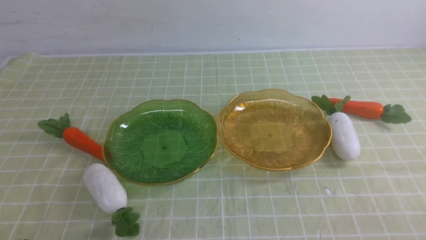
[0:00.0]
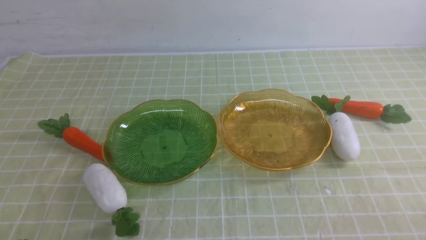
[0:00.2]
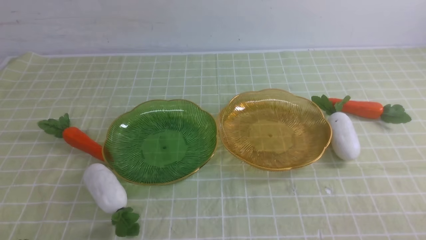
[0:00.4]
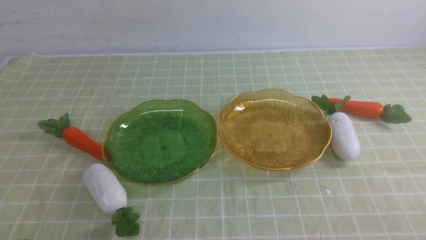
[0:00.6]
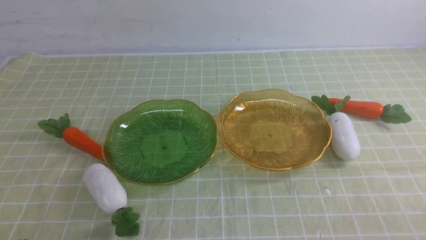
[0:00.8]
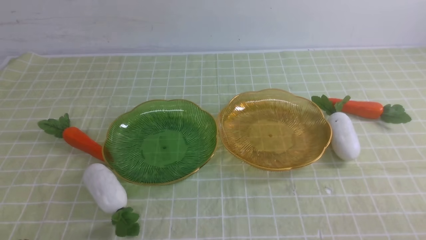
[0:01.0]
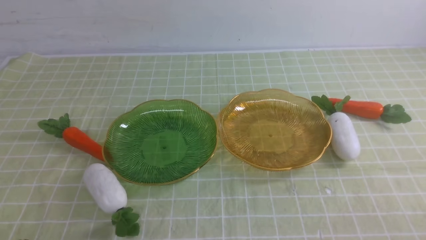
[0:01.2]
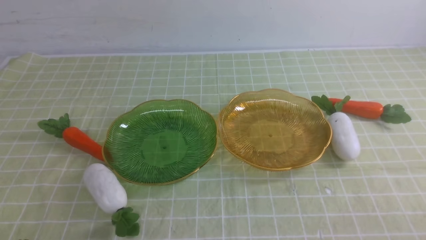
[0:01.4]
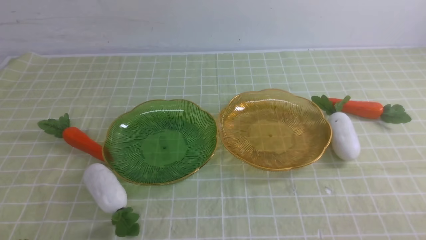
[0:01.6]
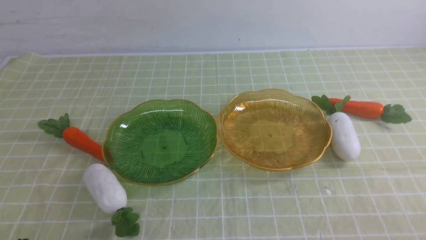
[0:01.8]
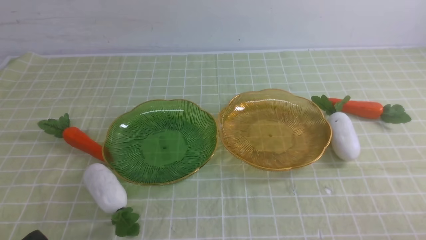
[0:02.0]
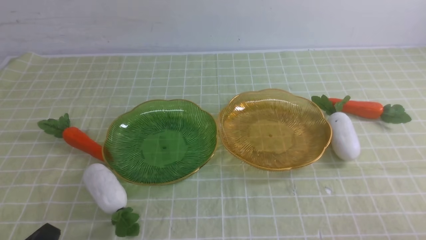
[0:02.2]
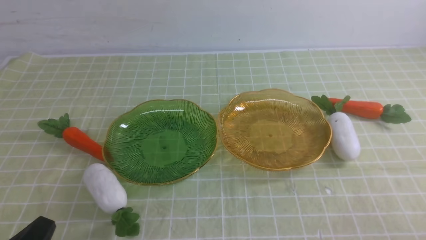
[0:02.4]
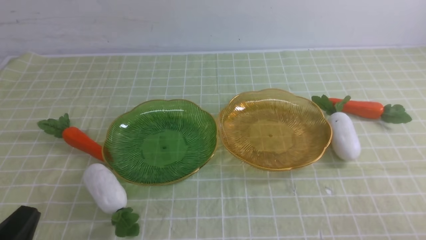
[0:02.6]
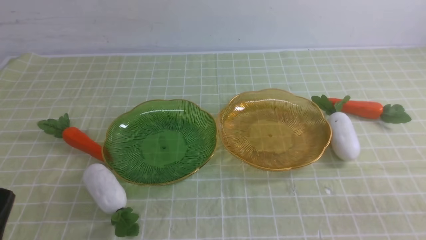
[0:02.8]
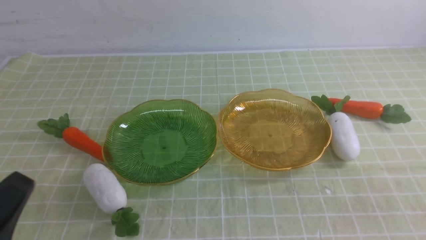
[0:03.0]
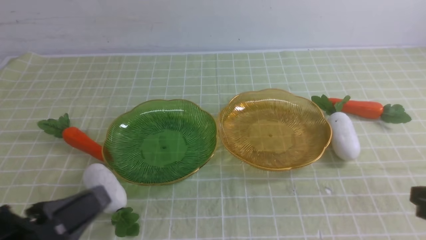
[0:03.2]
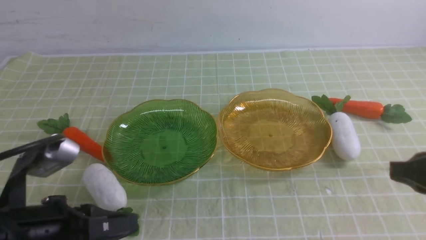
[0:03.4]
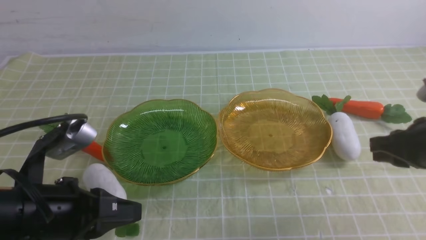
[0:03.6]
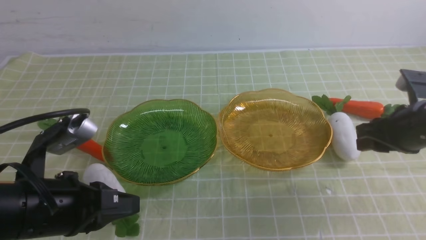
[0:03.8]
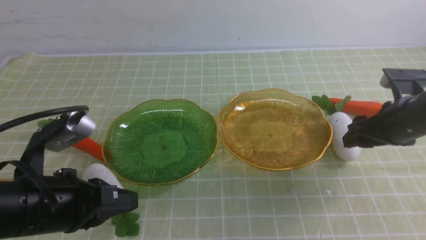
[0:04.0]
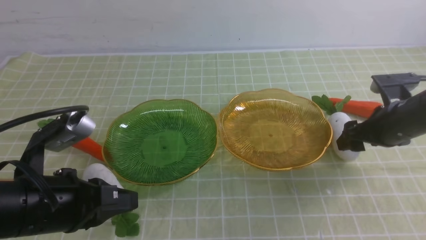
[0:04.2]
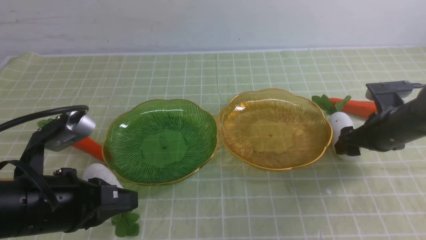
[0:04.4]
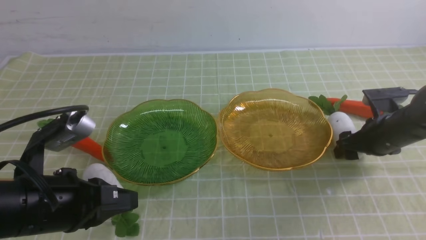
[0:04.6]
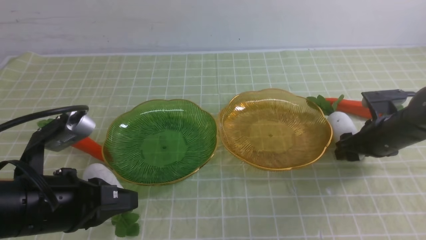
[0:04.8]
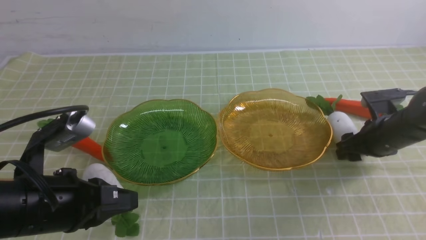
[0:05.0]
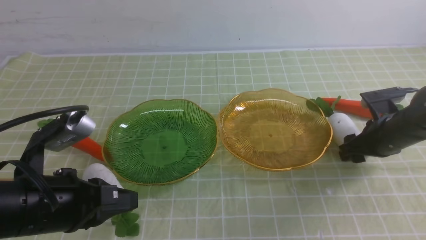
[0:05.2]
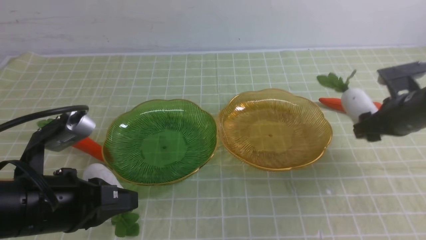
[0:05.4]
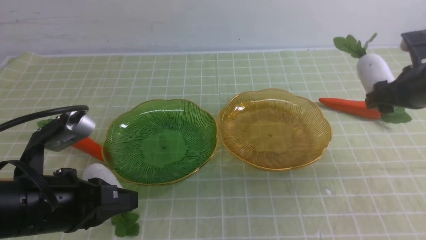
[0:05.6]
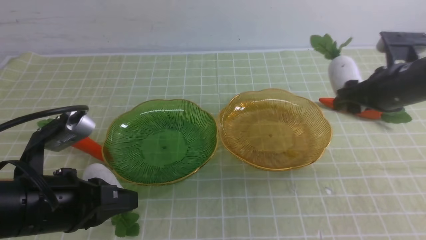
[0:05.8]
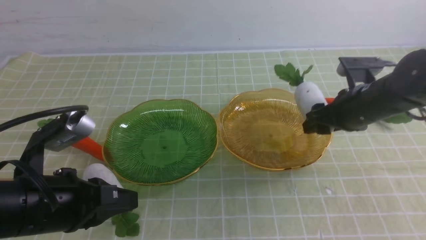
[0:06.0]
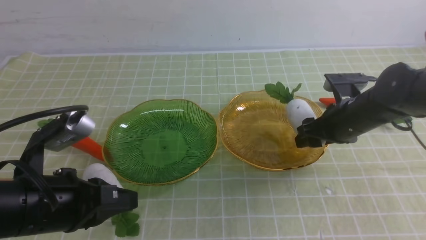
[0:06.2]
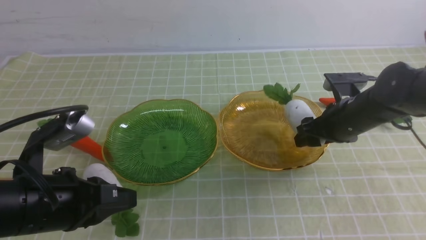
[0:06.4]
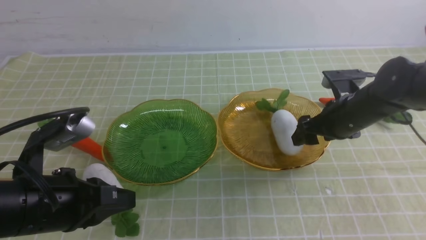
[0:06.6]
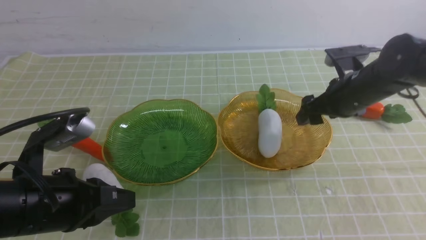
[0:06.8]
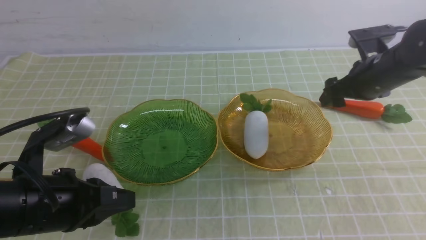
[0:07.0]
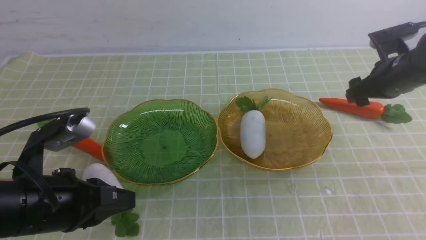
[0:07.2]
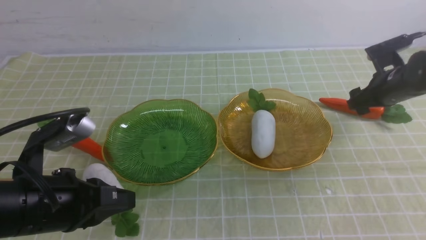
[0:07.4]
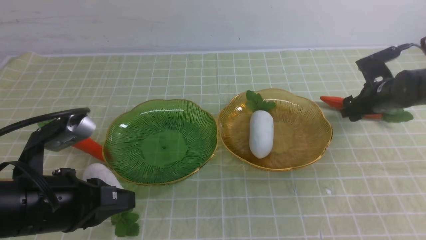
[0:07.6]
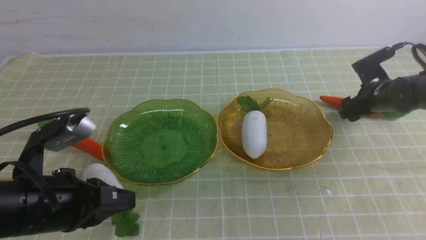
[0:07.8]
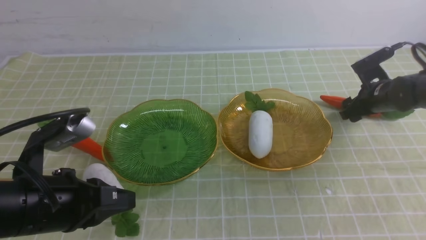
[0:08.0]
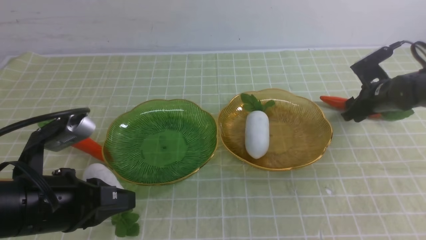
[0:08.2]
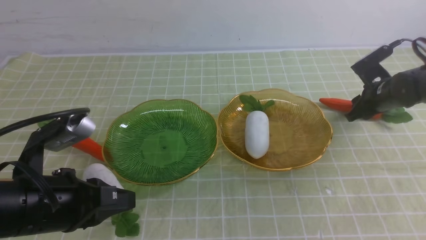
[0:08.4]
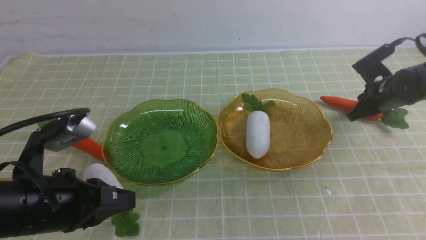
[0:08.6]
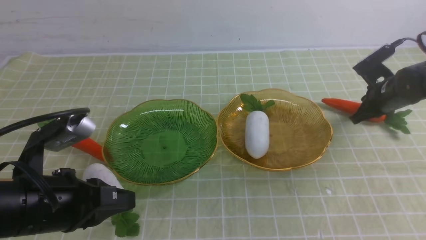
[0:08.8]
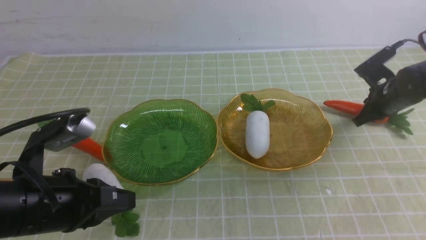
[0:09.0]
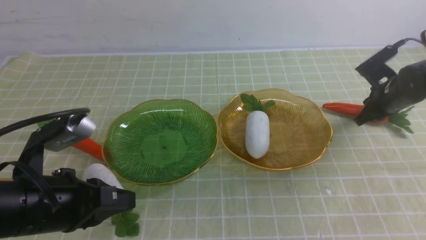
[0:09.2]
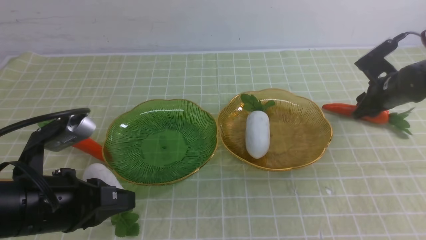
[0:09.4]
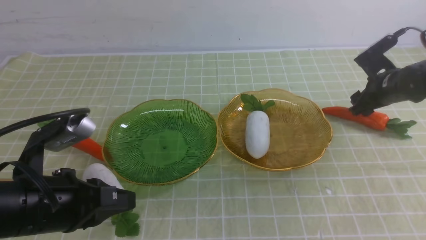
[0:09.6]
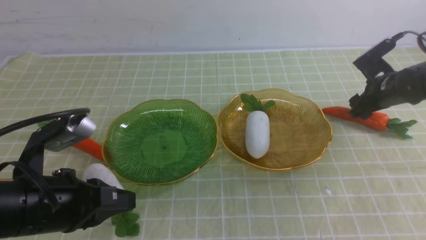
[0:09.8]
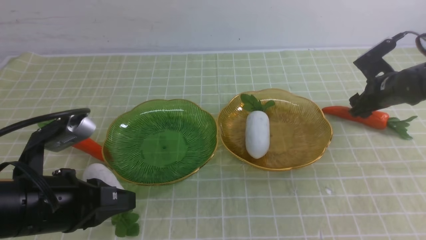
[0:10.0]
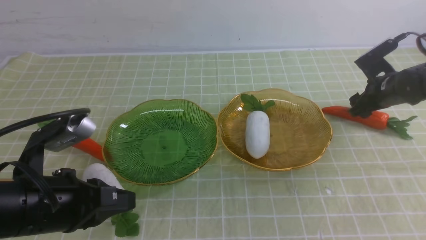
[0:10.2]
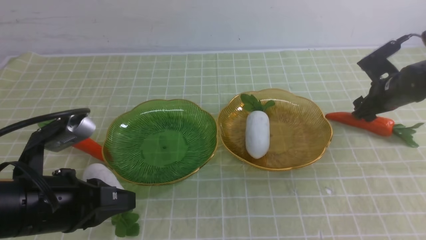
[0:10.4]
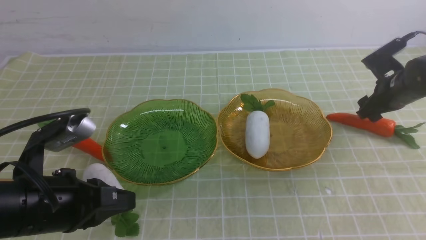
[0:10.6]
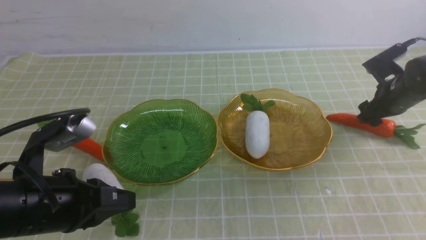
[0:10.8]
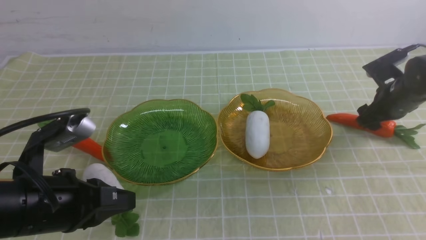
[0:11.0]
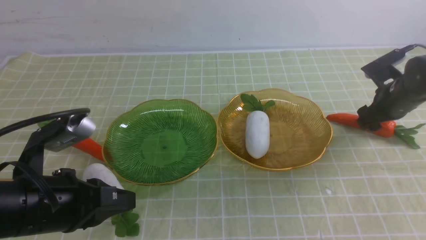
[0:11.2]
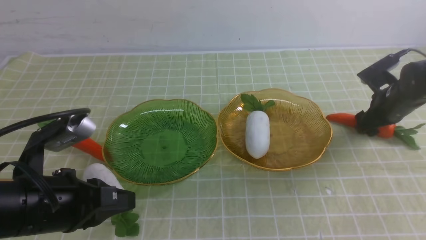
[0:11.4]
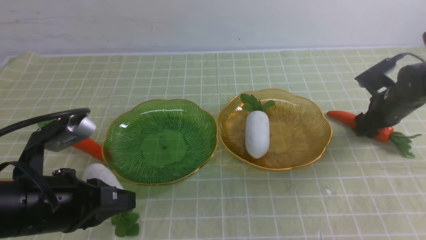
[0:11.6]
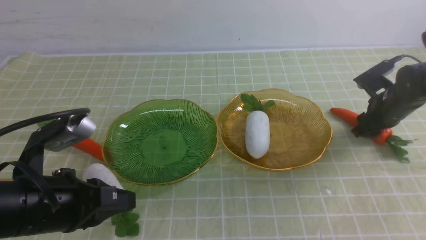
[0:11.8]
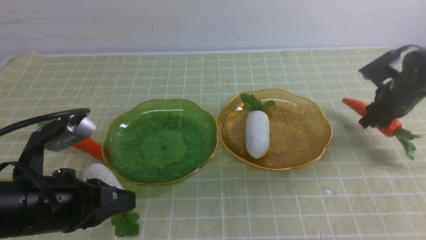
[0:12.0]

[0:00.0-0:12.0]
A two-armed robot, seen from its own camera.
Step, 0:00.0 to 0:08.8: use the right arm to grab a radish and put it into the right plate.
0:00.0 to 0:01.6: Neither gripper changes place.
0:01.6 to 0:03.0: The left gripper heads upward, covering approximately 10 cm.
0:03.0 to 0:04.4: The left gripper goes roughly 10 cm forward. The right gripper goes about 25 cm forward, and opens its fingers.
0:04.4 to 0:06.0: The right gripper is displaced to the left by approximately 5 cm.
0:06.0 to 0:07.6: The right gripper moves forward, to the right and downward, approximately 15 cm.
0:07.6 to 0:09.0: The right gripper closes its fingers.
0:09.0 to 0:10.4: The right gripper opens.
0:10.4 to 0:12.0: The right gripper closes up.

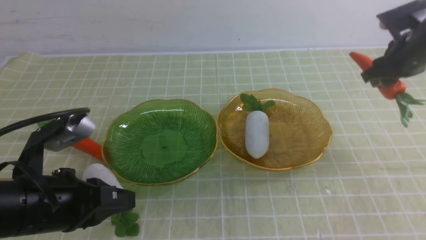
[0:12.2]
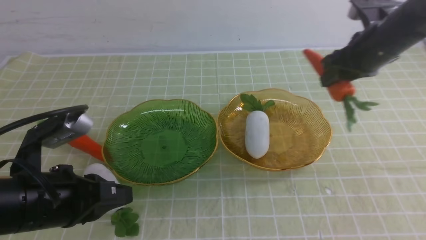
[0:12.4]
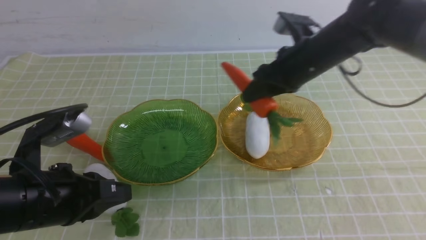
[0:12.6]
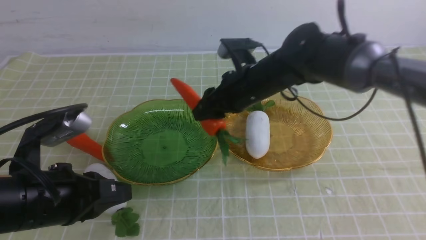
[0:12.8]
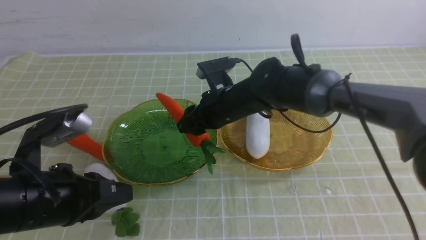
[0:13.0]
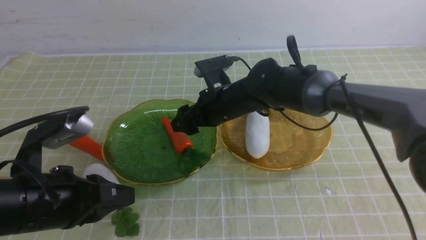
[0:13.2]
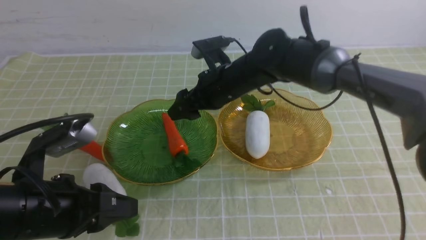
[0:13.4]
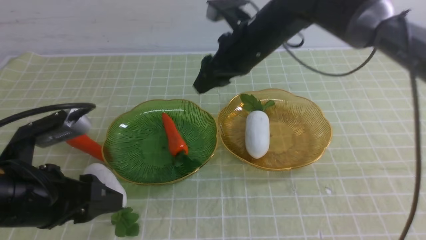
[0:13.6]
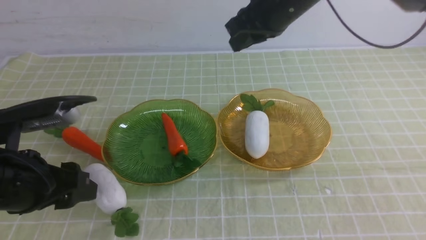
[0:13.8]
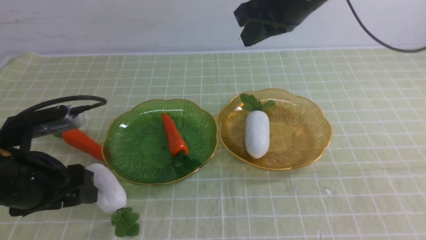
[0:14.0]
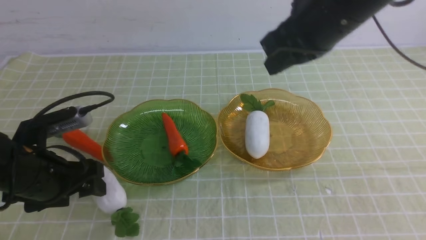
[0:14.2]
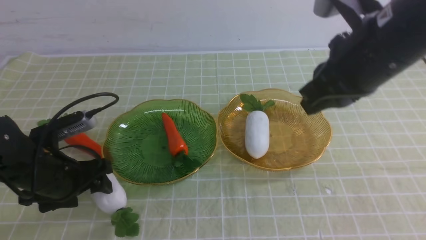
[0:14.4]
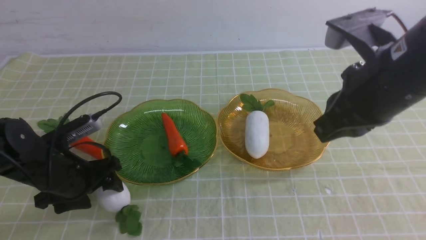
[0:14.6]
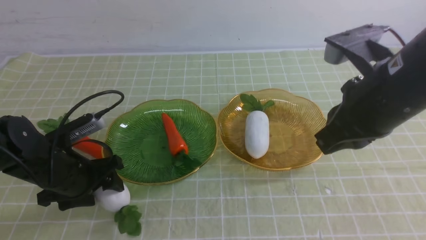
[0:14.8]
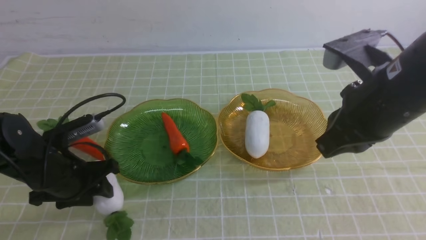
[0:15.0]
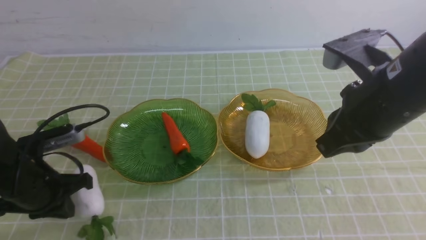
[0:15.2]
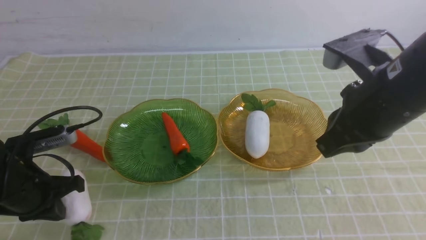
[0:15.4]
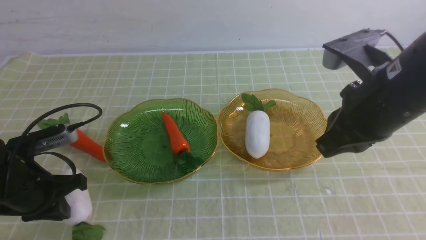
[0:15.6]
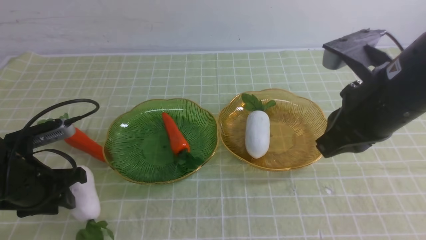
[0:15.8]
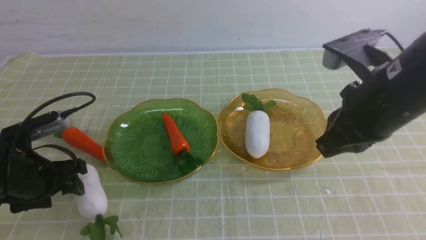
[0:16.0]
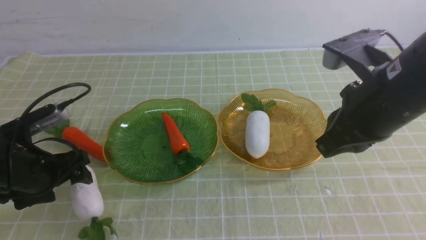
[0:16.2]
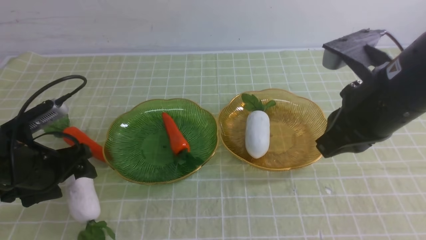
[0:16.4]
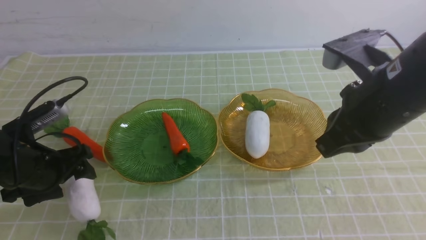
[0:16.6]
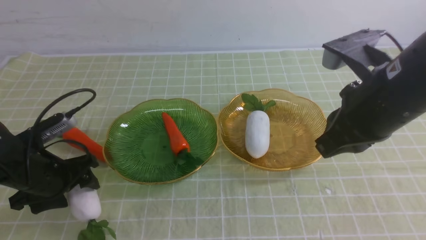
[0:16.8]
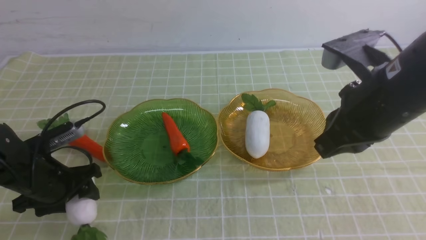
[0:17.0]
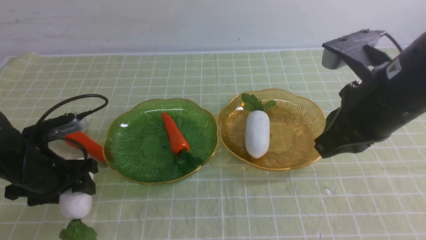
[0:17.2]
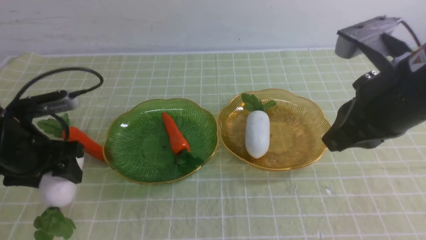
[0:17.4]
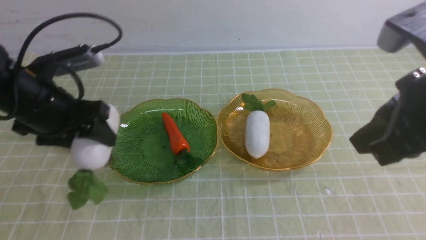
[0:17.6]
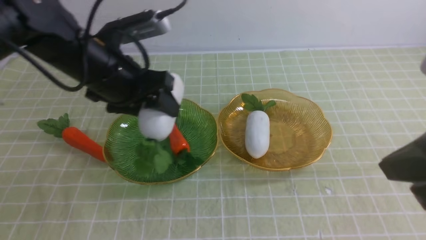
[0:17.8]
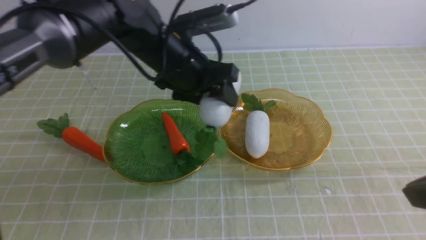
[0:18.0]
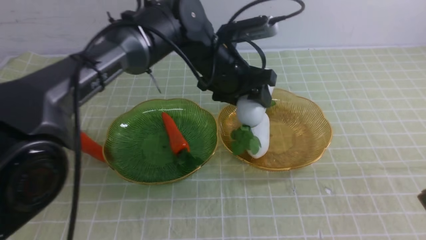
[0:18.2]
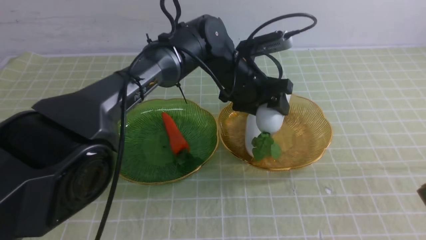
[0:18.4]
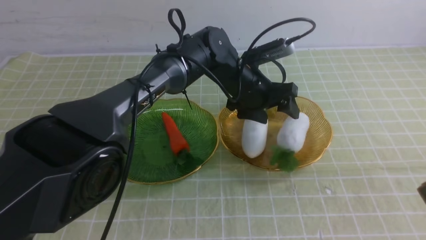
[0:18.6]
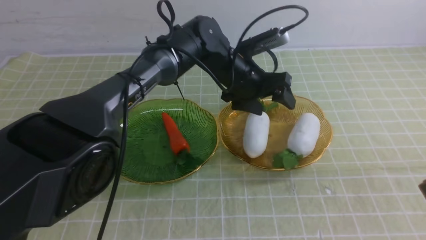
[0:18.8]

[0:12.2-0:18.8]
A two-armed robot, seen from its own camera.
0:12.2 to 0:13.8: The right gripper moves to the left and upward, about 25 cm, while the left gripper opens its fingers.
0:13.8 to 0:15.4: The right gripper is displaced backward and to the right by about 15 cm, while the left gripper shifts approximately 5 cm downward, and closes.
0:15.4 to 0:17.2: The left gripper opens up.
0:17.2 to 0:18.8: The left gripper heads to the right and forward, covering about 30 cm, while the right gripper moves backward and to the right, approximately 15 cm.
